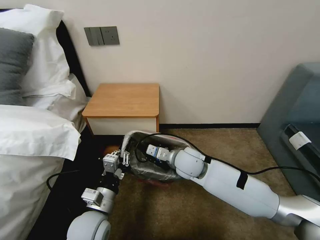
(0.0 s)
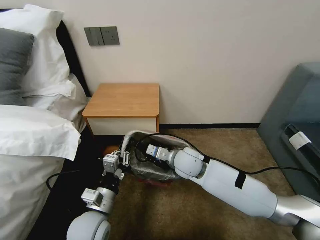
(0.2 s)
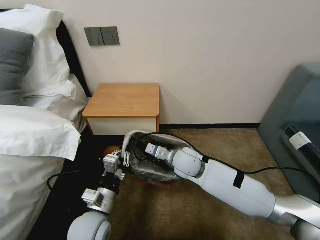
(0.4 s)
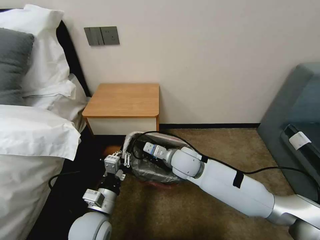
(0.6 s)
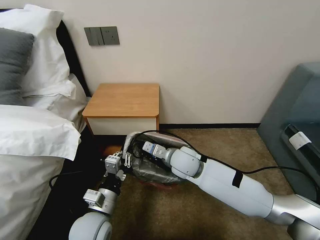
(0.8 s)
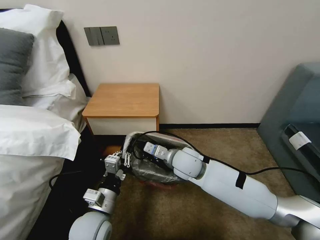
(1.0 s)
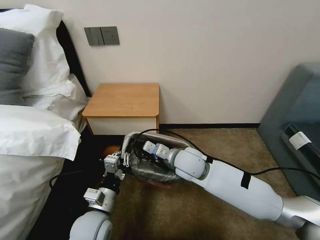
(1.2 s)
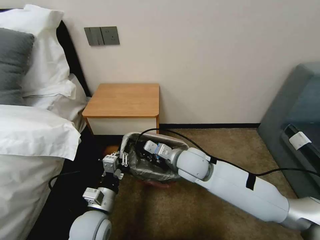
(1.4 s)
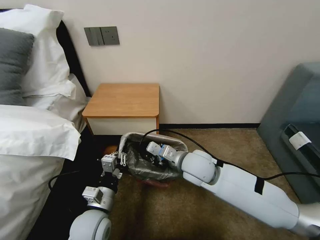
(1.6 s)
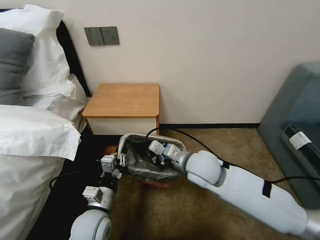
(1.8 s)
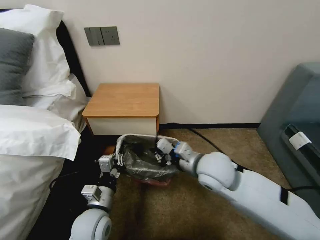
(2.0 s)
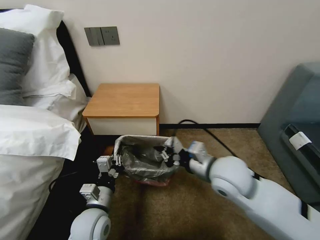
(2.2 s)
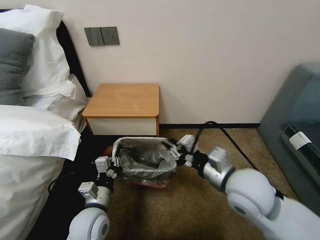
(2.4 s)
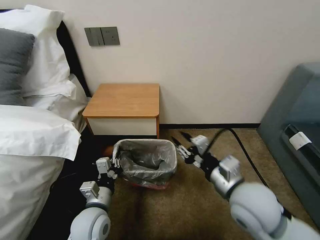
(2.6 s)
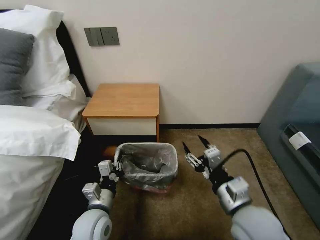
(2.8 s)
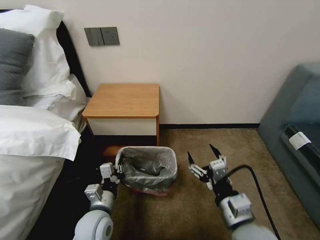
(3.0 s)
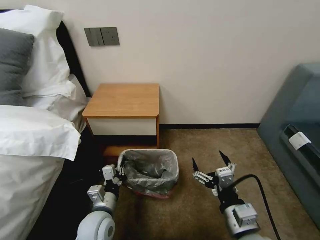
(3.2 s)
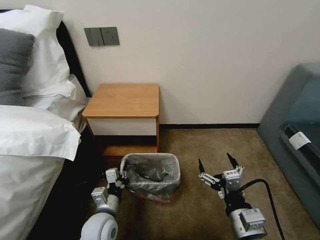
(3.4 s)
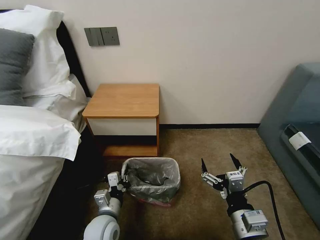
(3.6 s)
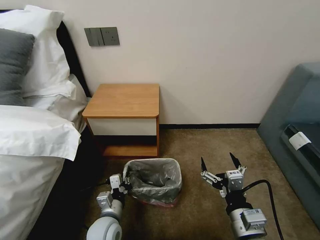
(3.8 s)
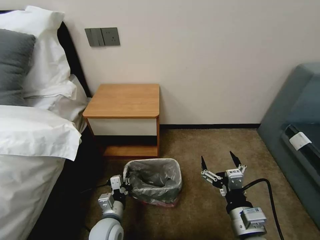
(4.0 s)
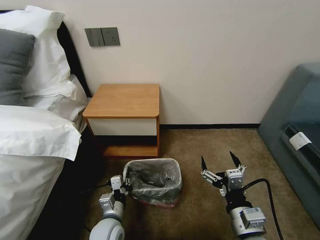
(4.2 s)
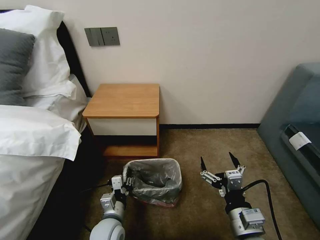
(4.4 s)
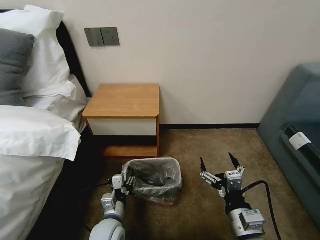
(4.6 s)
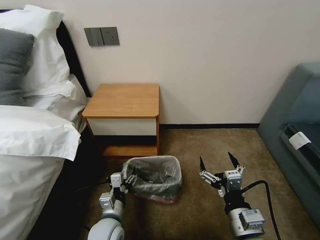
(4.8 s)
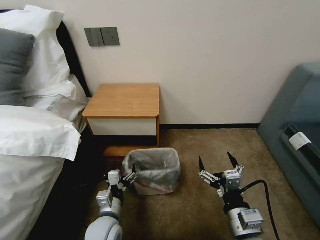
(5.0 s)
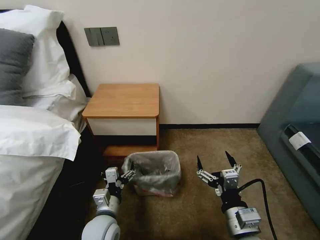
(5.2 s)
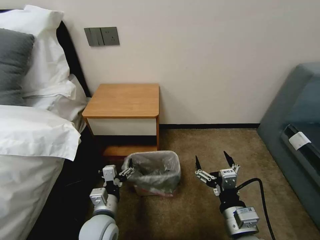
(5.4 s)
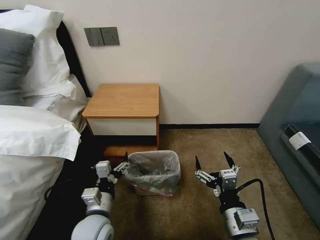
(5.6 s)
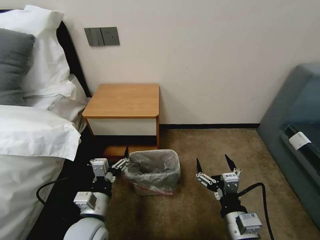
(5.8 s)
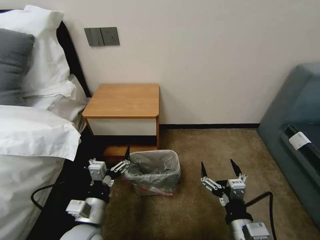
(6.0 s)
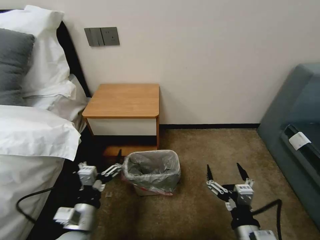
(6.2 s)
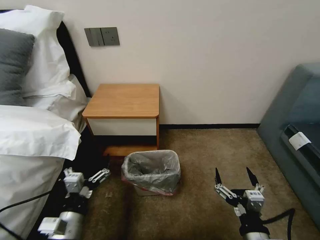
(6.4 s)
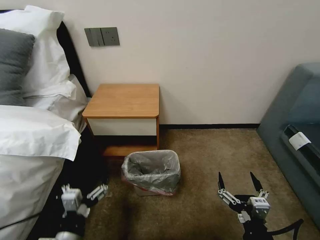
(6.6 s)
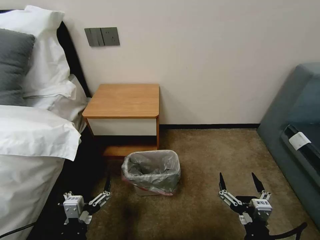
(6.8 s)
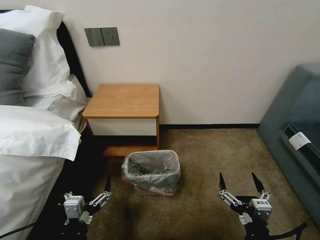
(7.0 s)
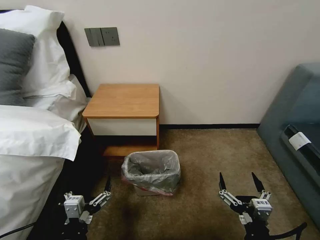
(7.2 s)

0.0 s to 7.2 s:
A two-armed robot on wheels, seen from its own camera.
Task of the whole recording: Pick up the garbage bag from the table and place it over the trash can.
0.0 to 1.4 s: There are only small adjustments of the grippers.
1.4 to 2.8 s: The right gripper moves backward and to the right, roughly 20 cm, and opens up.
2.8 to 4.4 s: The right gripper travels backward and downward by some 10 cm, and opens, while the left gripper travels downward by some 5 cm.
4.4 to 5.8 s: The left gripper goes roughly 10 cm upward, and opens up.
5.8 to 7.2 s: The left gripper moves backward, some 10 cm. Meanwhile the right gripper shifts roughly 5 cm backward.

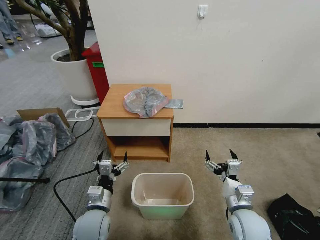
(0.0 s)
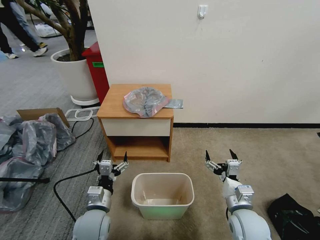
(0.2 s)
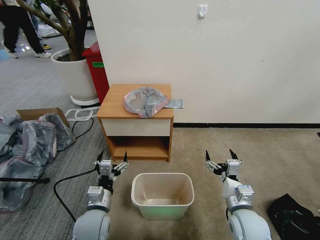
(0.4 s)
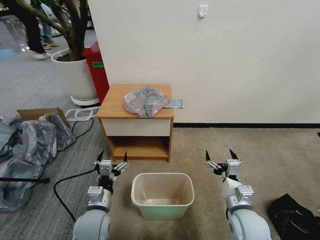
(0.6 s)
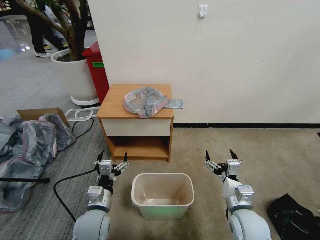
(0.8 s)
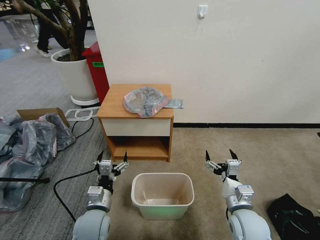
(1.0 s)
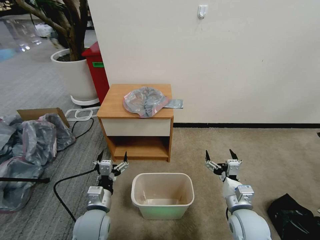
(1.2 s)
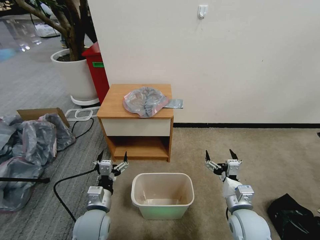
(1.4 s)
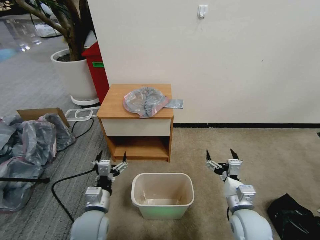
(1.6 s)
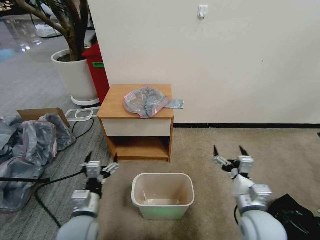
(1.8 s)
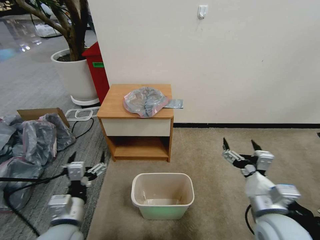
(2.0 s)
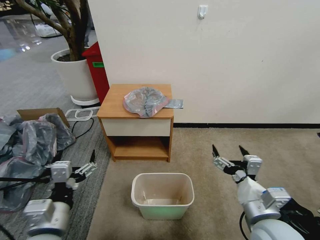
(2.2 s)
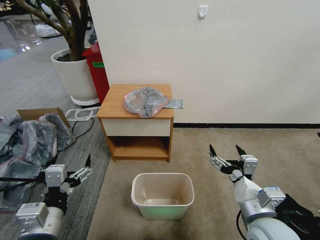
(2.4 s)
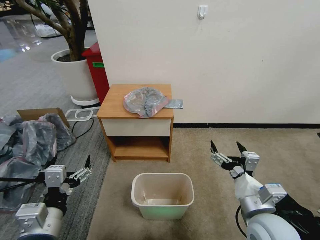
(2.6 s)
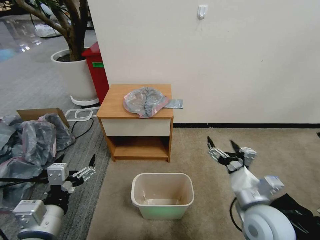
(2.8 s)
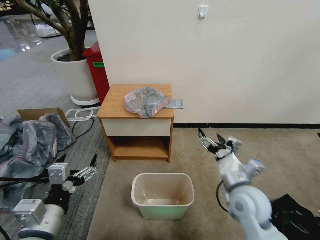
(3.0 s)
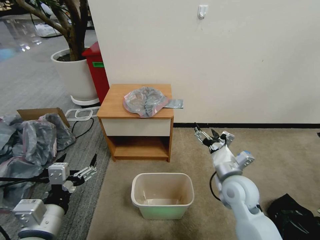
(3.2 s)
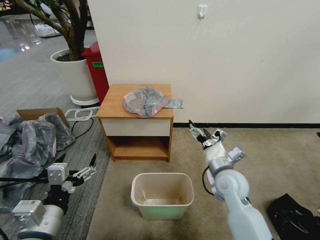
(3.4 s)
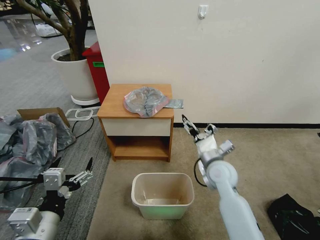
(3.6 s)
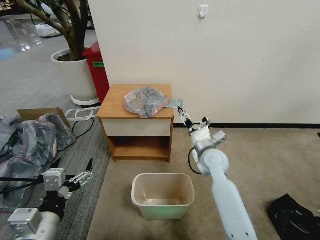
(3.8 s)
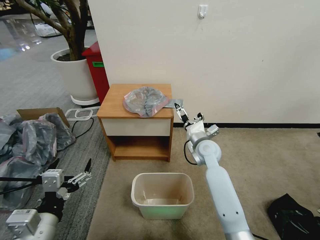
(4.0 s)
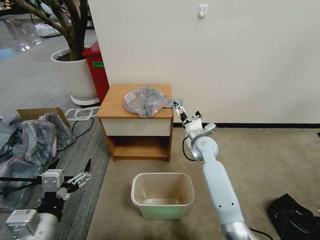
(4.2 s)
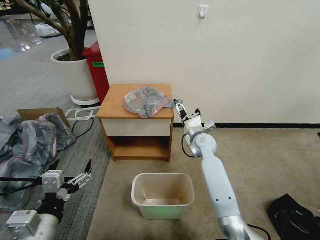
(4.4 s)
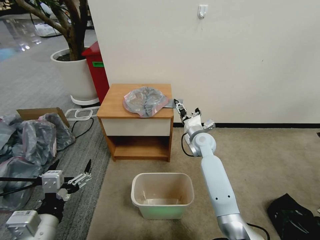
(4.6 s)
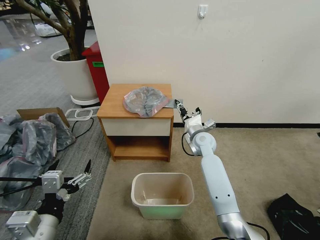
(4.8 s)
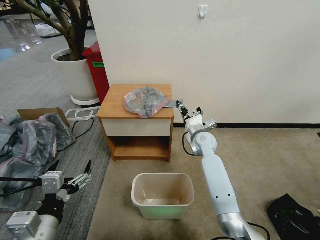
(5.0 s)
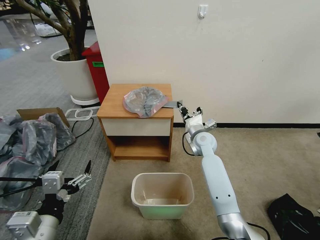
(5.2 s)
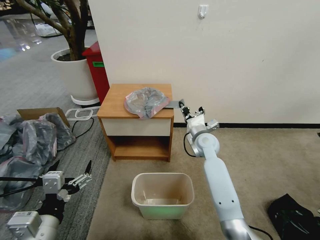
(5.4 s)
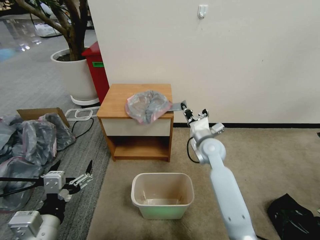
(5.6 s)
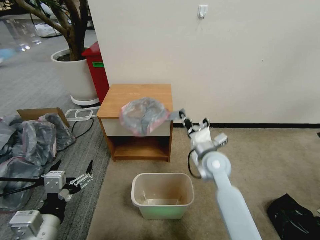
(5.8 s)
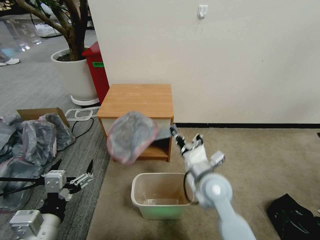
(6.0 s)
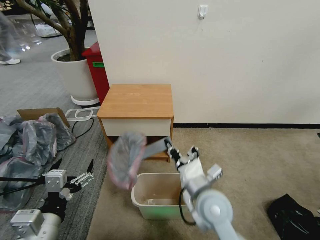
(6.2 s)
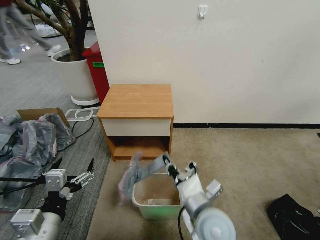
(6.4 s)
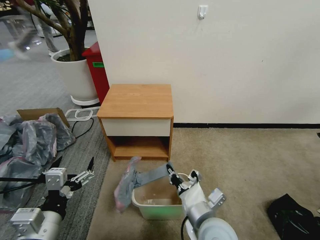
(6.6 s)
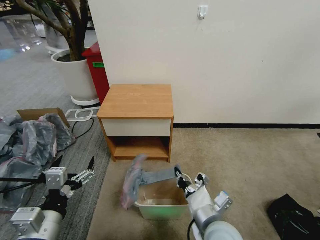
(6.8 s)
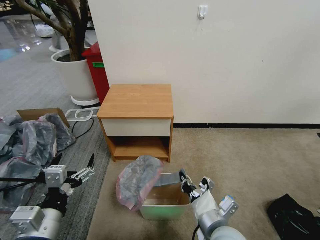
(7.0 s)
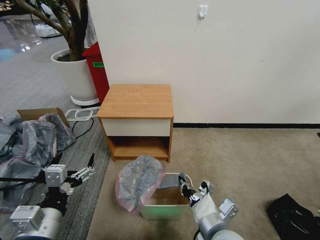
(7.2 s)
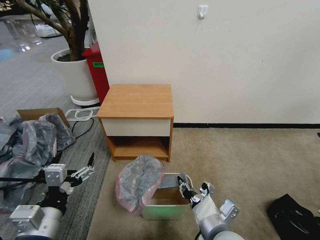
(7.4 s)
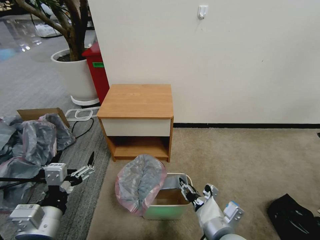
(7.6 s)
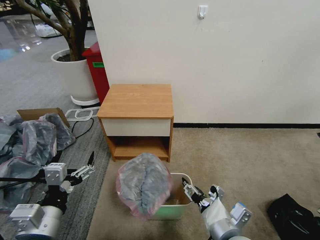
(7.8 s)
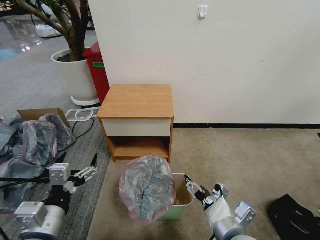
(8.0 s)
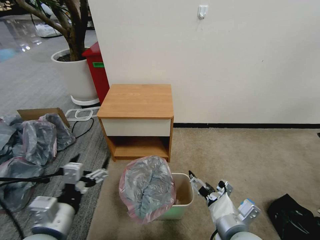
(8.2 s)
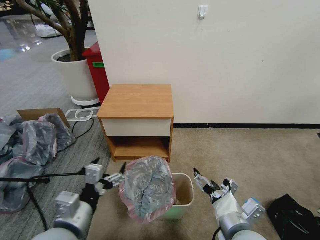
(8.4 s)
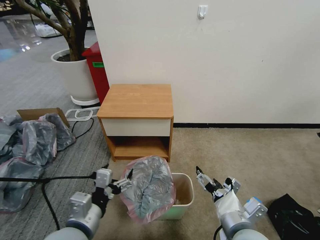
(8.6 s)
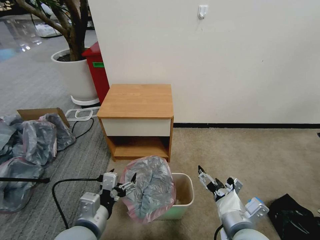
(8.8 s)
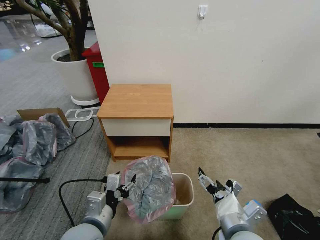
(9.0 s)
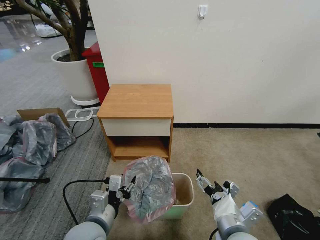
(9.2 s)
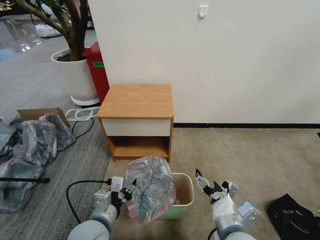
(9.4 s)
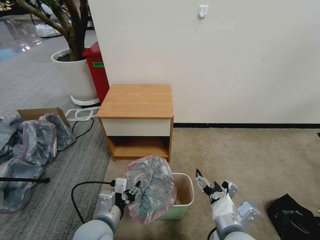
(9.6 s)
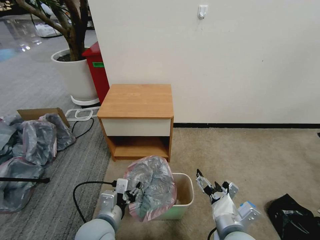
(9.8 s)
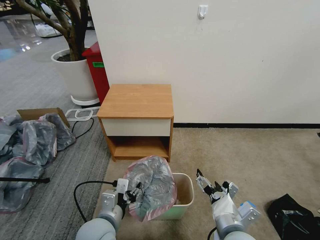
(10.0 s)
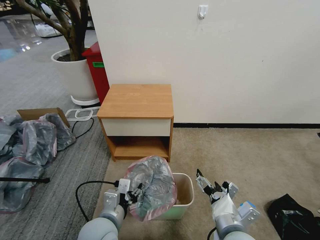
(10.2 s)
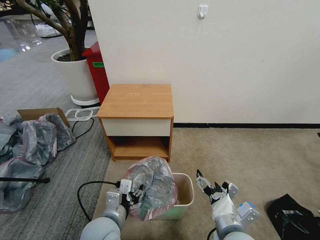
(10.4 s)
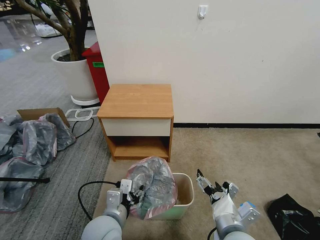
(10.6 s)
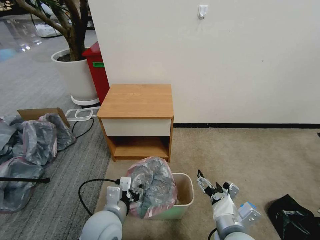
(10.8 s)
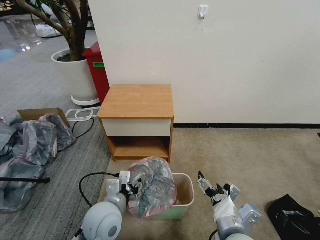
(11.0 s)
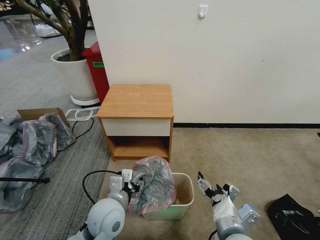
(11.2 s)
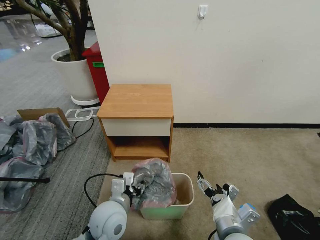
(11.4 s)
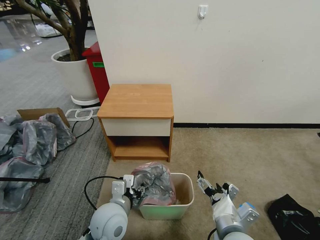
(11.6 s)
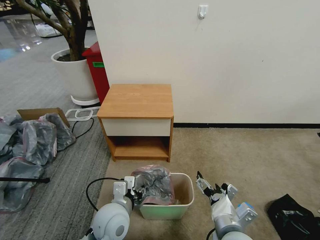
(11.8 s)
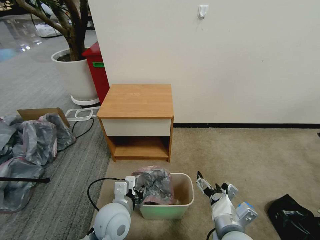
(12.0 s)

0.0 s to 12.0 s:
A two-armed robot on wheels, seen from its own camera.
Task of the whole recording: Pick up the garbage bag from the table and place it over the trash can.
1.6 to 3.0 s: The right gripper moves upward, some 10 cm; the left gripper goes approximately 15 cm upward and backward.
3.0 to 4.4 s: The right gripper shifts some 25 cm forward.
4.4 to 6.0 s: The right gripper heads backward, covering approximately 20 cm, and closes.
6.0 to 7.6 s: The right gripper goes roughly 15 cm backward, and opens its fingers.
7.6 to 9.0 s: The left gripper travels to the right and downward by about 10 cm. Meanwhile the right gripper opens up.
9.0 to 10.4 s: There are only small adjustments of the grippers.
10.4 to 12.0 s: The grippers stay close to where they were, moving slightly.

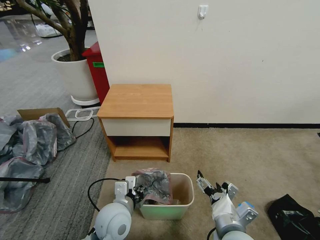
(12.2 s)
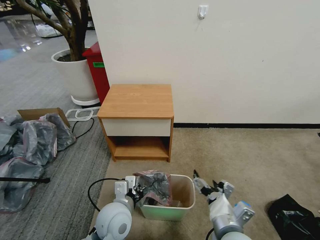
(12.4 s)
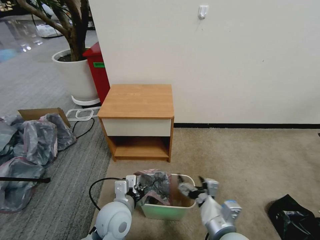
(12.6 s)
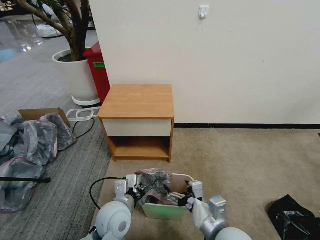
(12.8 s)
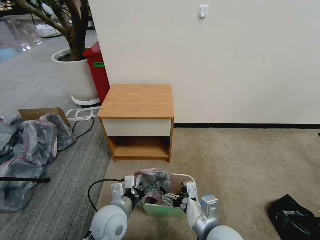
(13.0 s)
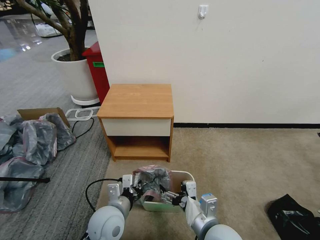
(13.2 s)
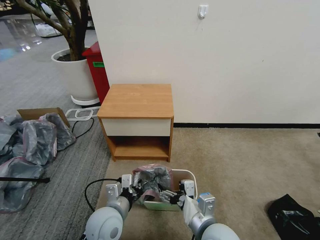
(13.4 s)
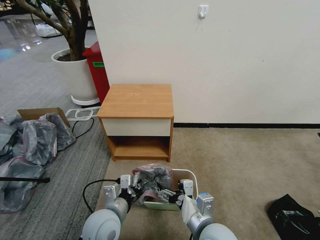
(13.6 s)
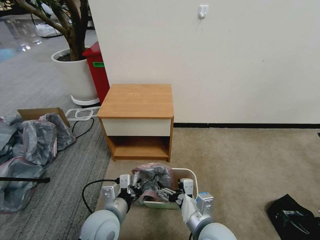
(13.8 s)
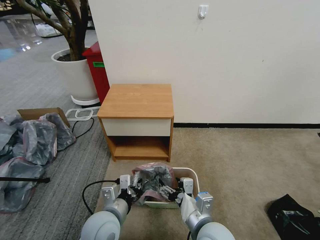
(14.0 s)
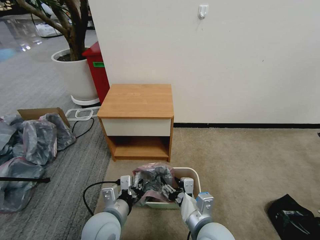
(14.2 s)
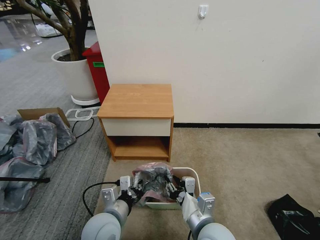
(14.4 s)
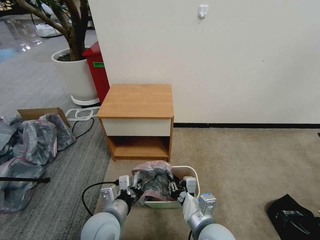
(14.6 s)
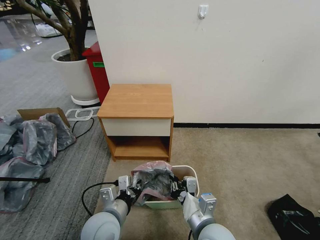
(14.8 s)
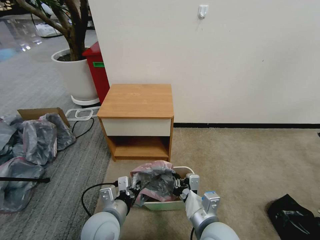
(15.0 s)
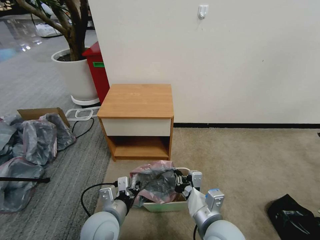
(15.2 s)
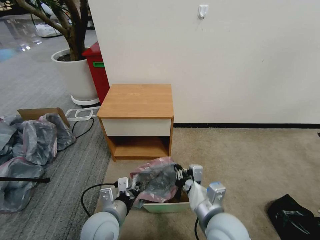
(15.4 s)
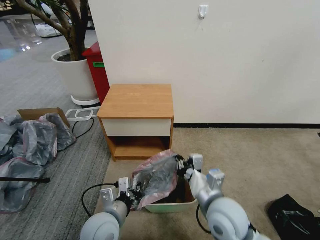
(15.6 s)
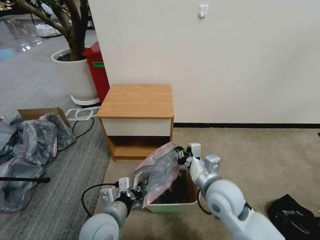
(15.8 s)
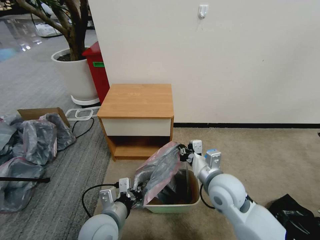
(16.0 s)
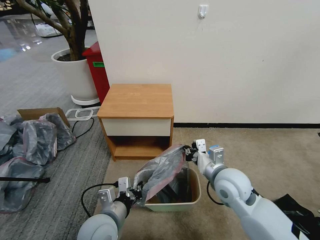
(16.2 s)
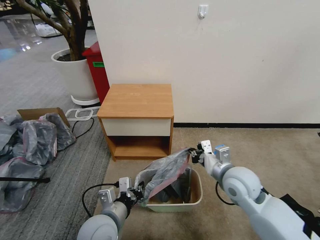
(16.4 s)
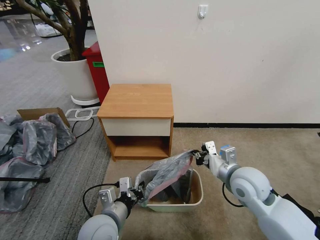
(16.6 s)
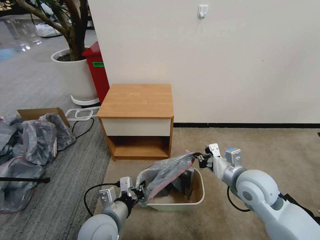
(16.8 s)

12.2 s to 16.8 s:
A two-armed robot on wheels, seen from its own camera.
Task of the whole recording: Pick up the garbage bag from the table and place it over the trash can.
12.2 to 13.8 s: The right gripper moves to the left, approximately 5 cm.
13.8 to 15.2 s: The right gripper closes up.
15.2 to 16.8 s: The right gripper is displaced forward and to the right by some 15 cm.
